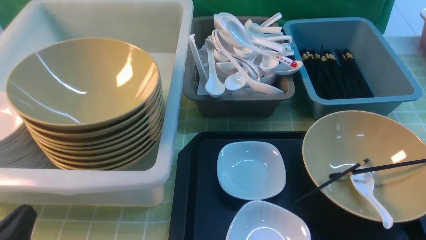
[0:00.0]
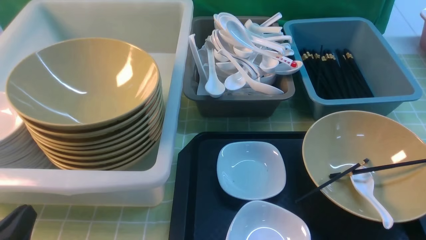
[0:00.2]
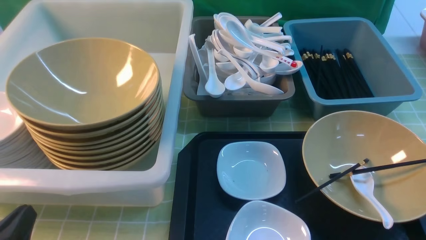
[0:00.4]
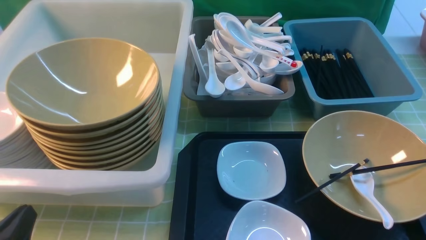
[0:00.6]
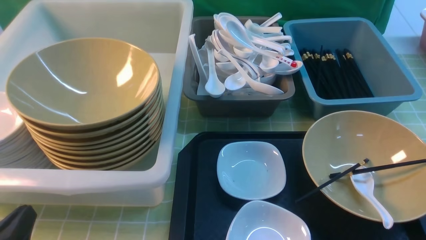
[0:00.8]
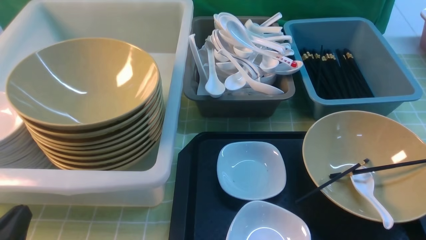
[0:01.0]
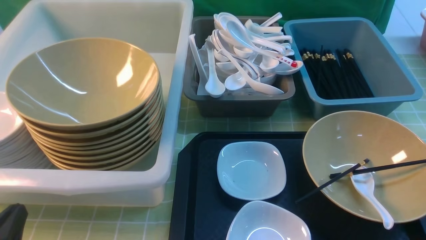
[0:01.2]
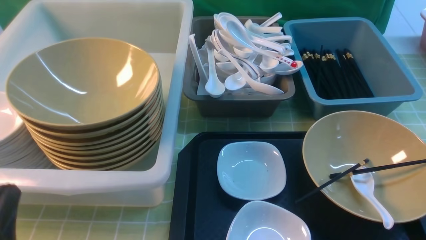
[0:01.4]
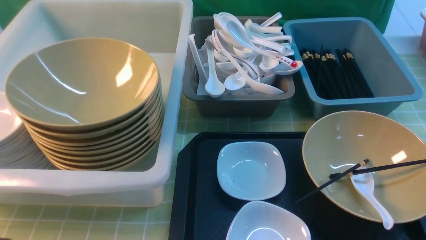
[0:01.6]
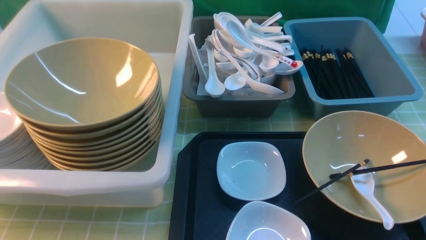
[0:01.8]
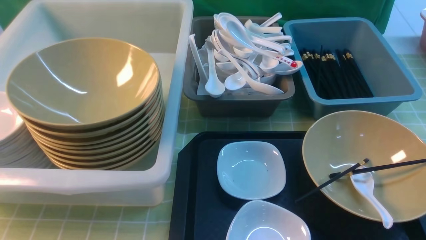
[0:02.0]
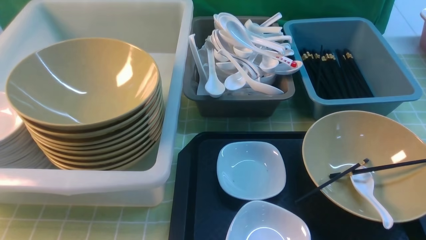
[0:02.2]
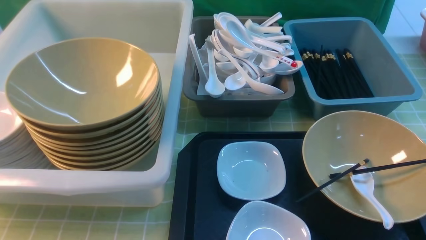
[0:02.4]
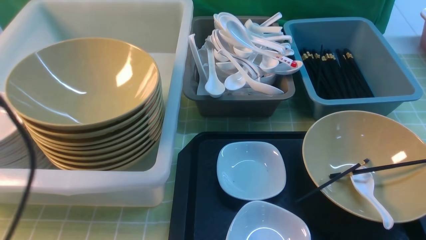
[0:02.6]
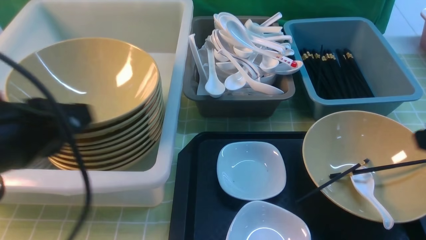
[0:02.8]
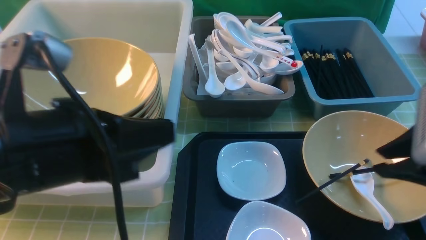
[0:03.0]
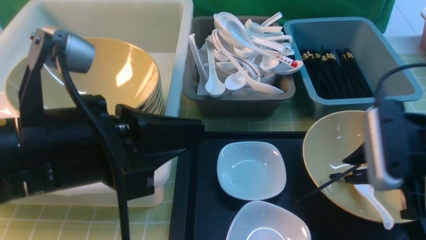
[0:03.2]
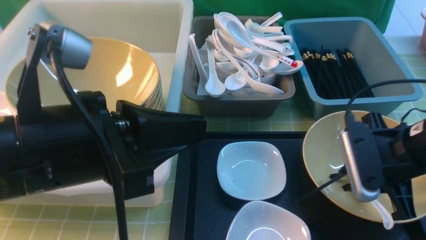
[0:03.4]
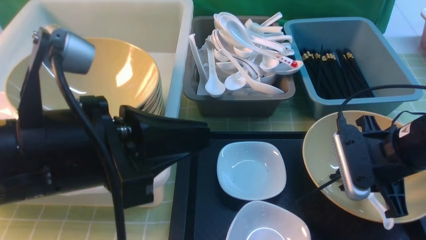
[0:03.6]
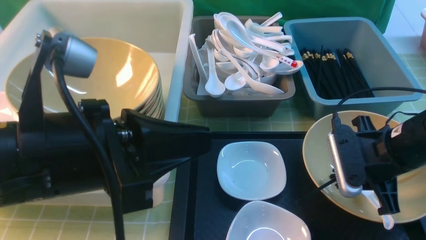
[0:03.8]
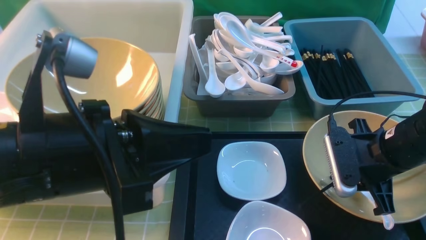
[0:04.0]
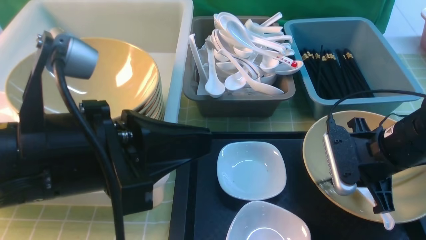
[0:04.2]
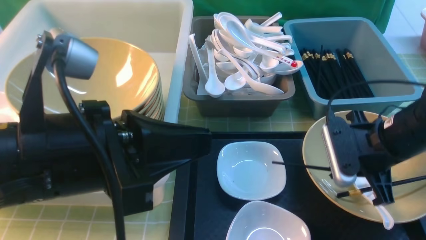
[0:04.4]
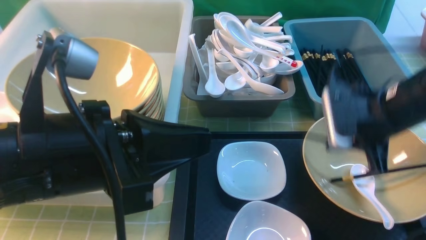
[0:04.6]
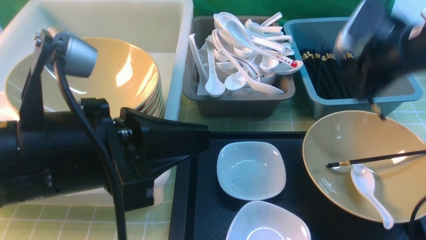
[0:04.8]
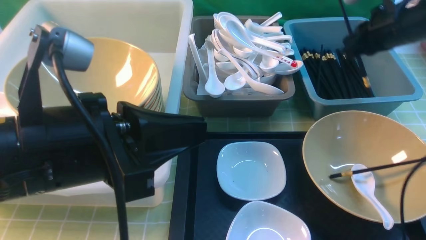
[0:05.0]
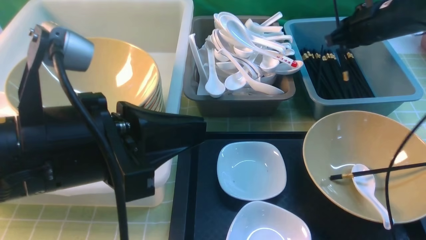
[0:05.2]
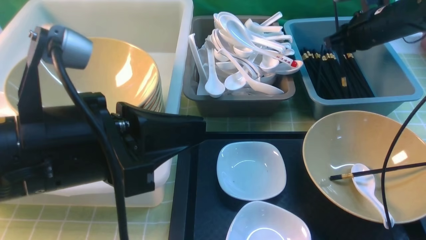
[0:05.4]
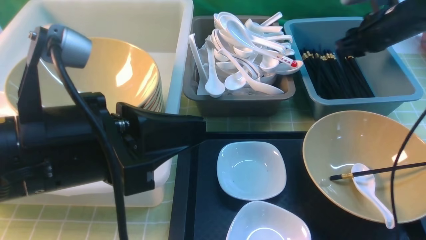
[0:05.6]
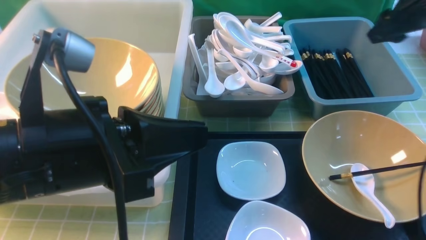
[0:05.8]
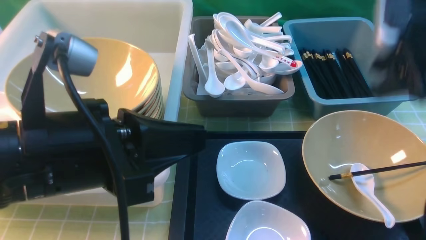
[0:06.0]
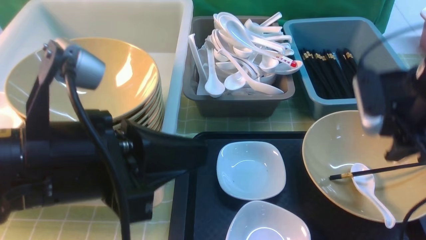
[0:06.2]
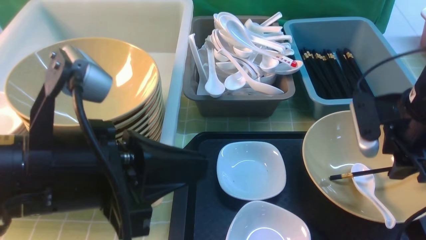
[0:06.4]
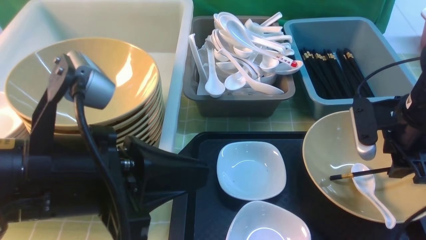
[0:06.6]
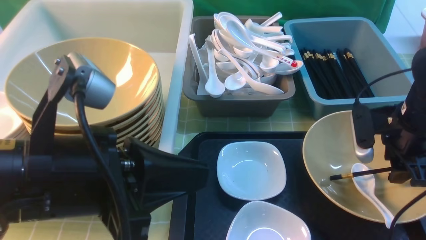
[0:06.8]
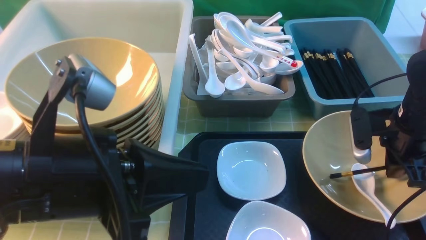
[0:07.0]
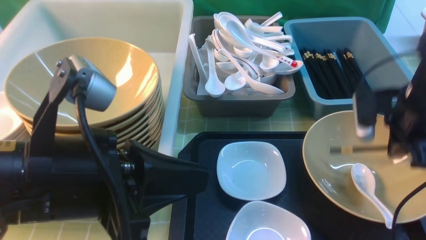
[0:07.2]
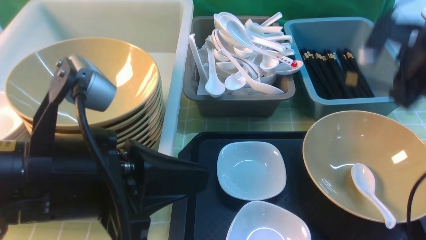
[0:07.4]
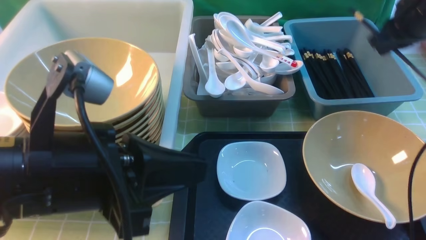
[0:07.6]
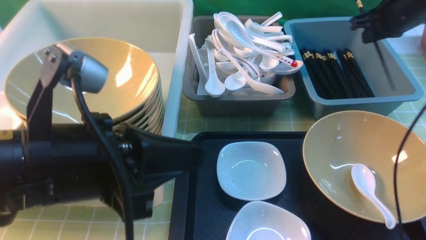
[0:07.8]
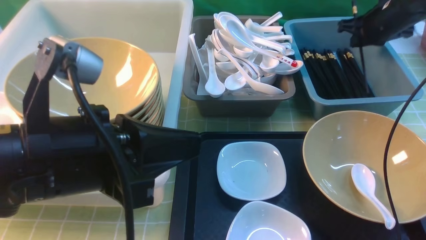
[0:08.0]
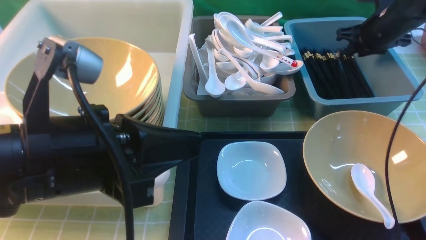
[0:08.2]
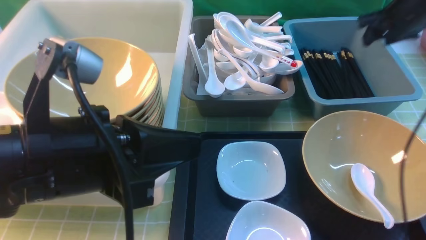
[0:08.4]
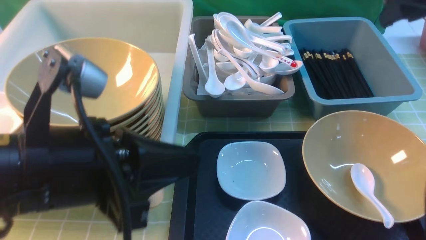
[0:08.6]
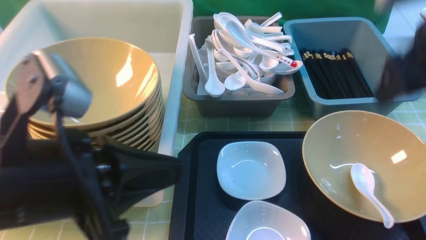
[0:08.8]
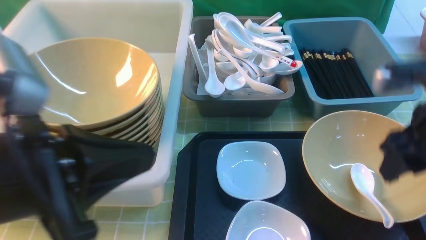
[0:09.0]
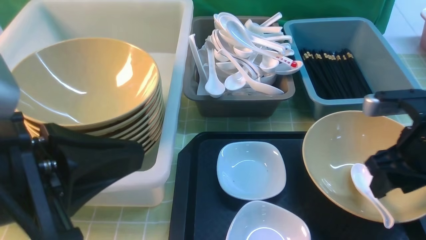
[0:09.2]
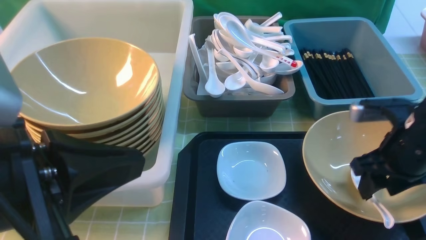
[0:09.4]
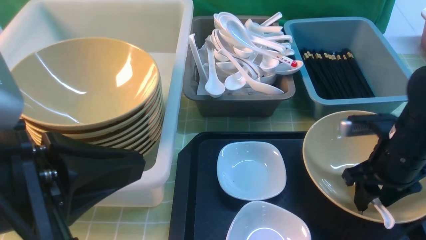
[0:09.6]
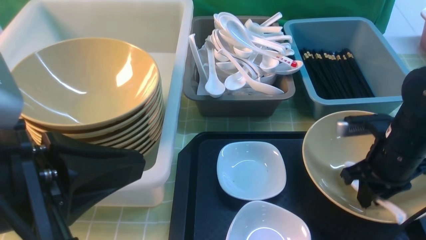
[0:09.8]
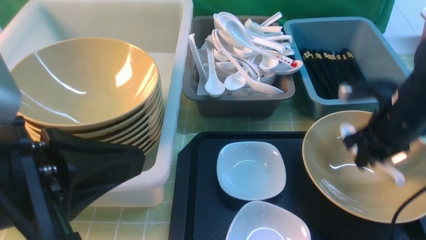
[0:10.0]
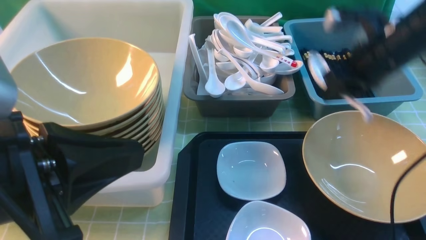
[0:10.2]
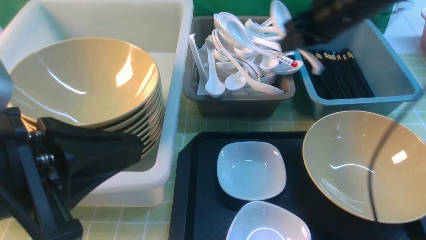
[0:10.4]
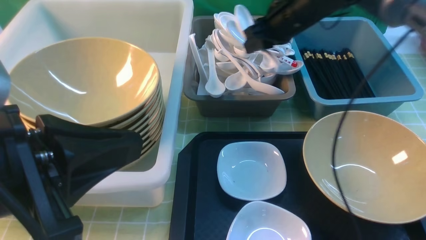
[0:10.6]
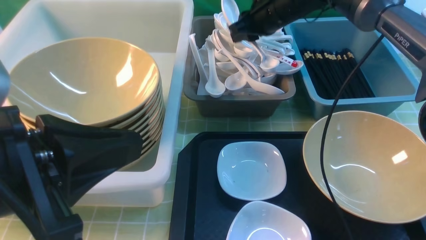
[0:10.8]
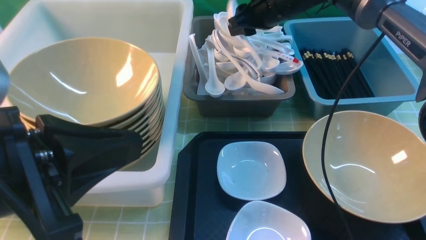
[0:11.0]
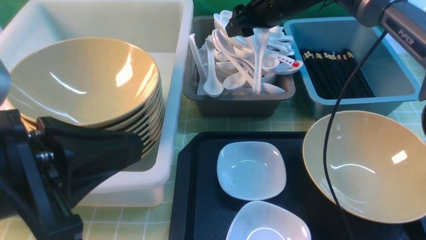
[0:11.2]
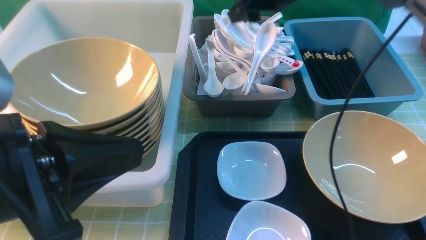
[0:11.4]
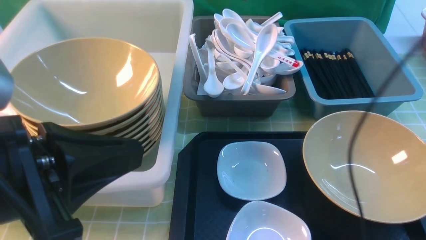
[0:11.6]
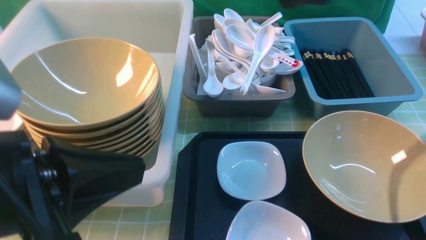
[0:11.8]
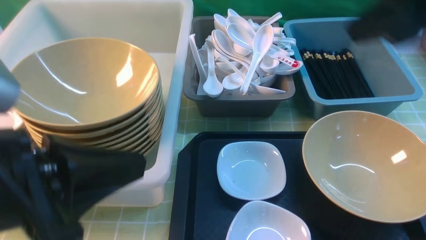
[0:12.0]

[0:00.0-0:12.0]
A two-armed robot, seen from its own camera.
Task of the whole recording: on green table put chopsticks spoon bowls plates into blue grey white boxes.
Step, 0.0 to 4.6 s: use the right arm to grab a chopstick.
Step, 4.8 to 5.8 s: use the right arm to put a chopstick into the small storage box on the right.
Step, 6.0 to 7.2 s: use the right arm to grab a chopstick.
Step, 7.4 to 8.0 s: use the right arm to put a chopstick into the small storage box on the right.
Step, 8.2 to 10.0 s: use the right arm to grab the soup spoon in the middle.
Step, 10.2 to 11.4 s: use the right arm to put the soup spoon into the small storage box in the middle.
0.0 to 1.6 s: The left gripper moves upward, roughly 5 cm.
1.6 to 3.0 s: The right gripper goes roughly 15 cm forward, and moves roughly 20 cm upward and comes back, while the left gripper heads upward, to the right and forward, covering about 15 cm.
3.0 to 4.4 s: The right gripper shifts some 10 cm forward and downward.
4.4 to 6.0 s: The right gripper is displaced upward and to the right by roughly 10 cm, reaches approximately 20 cm forward, then returns, and opens its fingers.
6.0 to 7.6 s: The right gripper is displaced forward by approximately 10 cm, and closes.
7.6 to 9.0 s: The right gripper is displaced backward by approximately 15 cm, and opens up.
9.0 to 10.4 s: The right gripper goes roughly 20 cm forward and to the left, and closes up.
10.4 to 12.0 s: The right gripper shifts roughly 25 cm backward and upward, and opens, then closes once more.

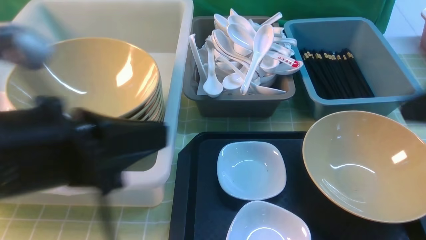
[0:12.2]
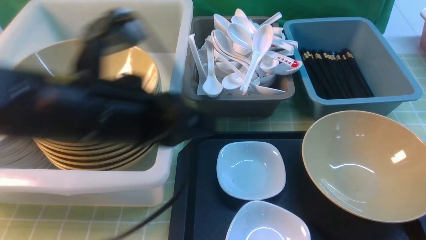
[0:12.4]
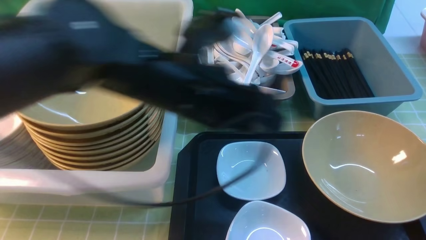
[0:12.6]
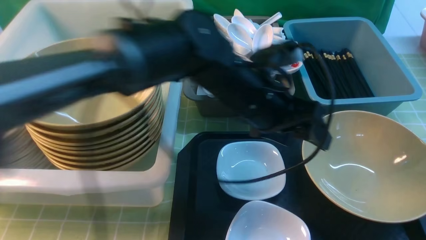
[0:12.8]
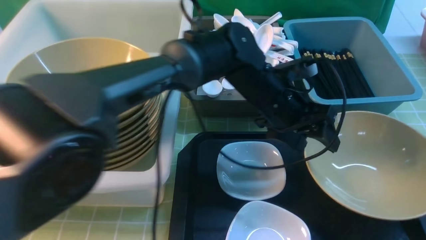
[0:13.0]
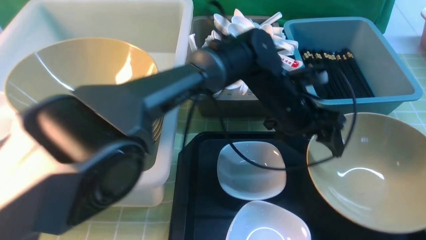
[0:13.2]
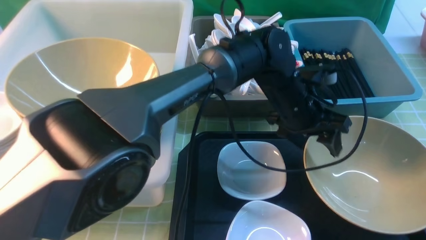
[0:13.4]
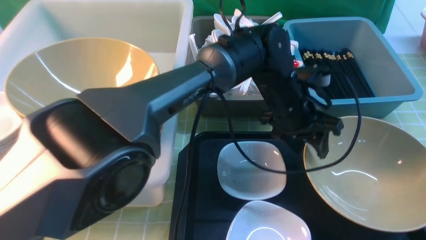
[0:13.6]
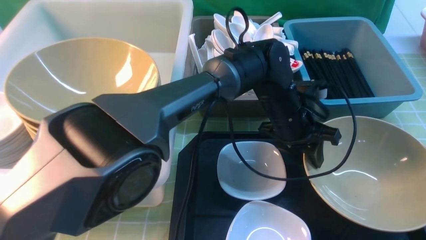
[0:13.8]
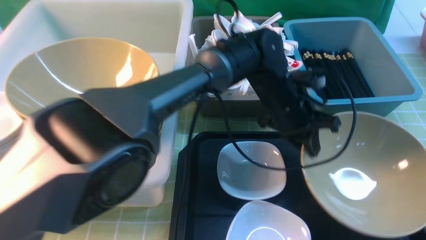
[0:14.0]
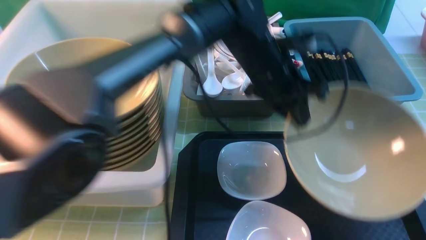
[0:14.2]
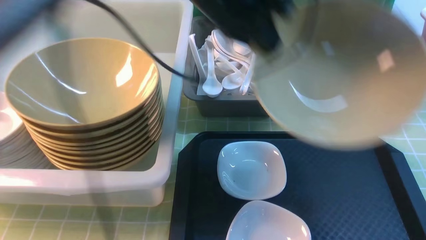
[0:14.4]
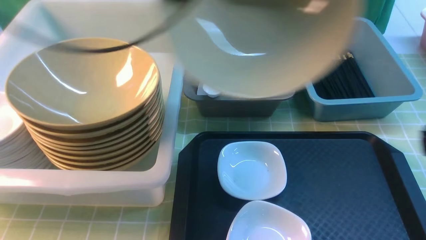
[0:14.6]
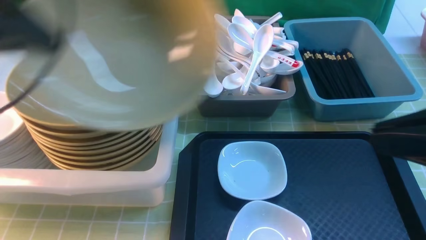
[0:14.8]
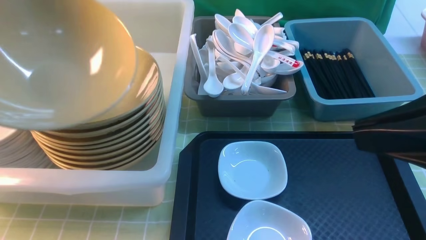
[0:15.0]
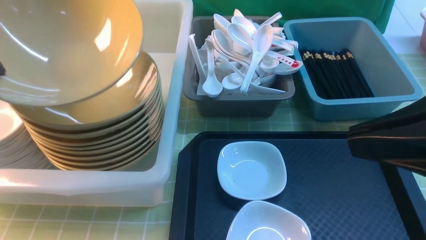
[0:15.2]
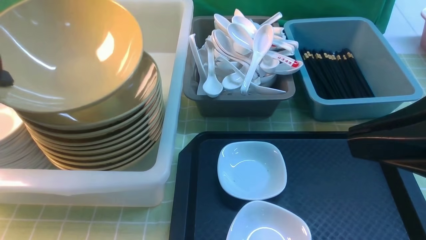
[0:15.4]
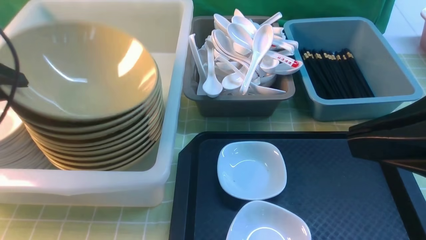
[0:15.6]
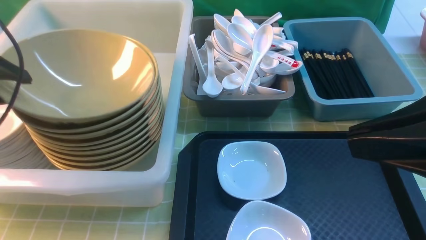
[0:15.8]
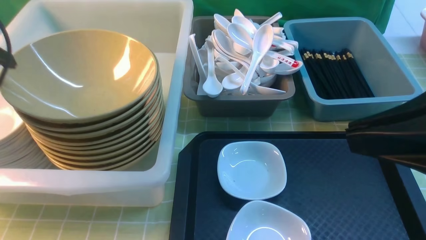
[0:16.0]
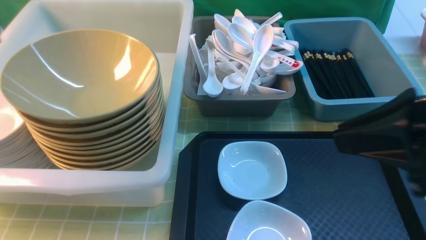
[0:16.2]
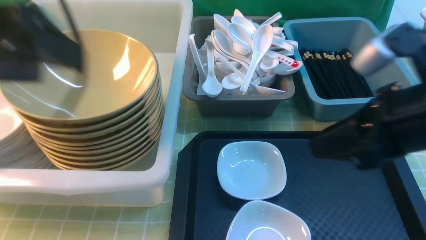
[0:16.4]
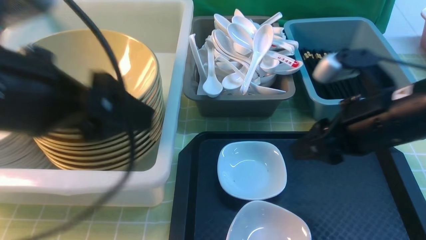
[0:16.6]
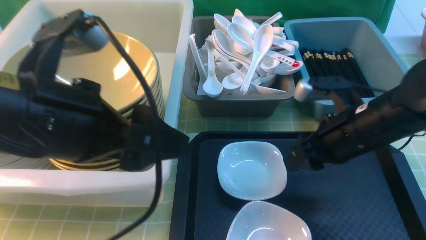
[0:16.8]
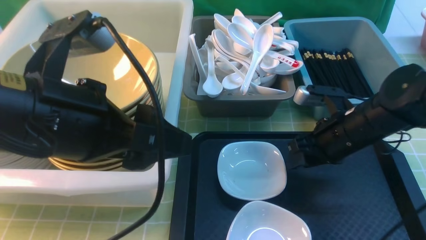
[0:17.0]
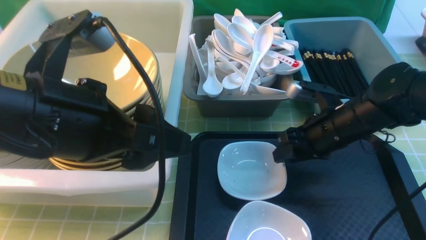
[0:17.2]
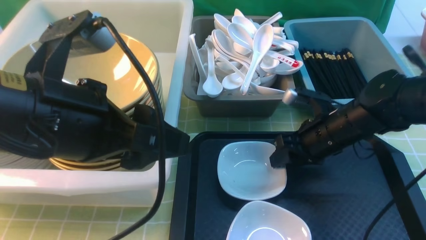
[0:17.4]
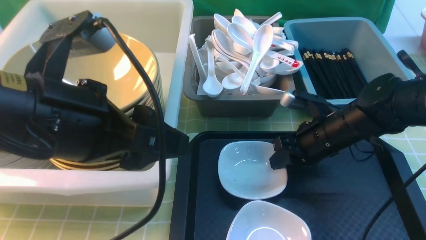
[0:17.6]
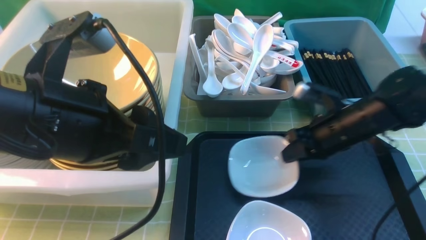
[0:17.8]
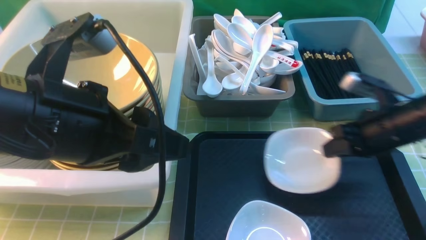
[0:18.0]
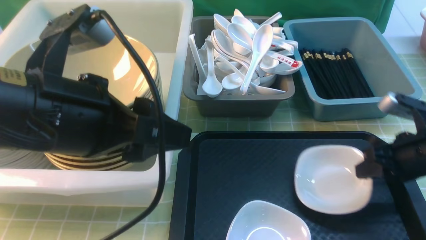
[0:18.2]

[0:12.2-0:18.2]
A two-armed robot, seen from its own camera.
Task of the whole recording: on green table put chopsticks spoon bowls plates into blue grey white boxes.
Step, 12.2 to 14.2 s: use the left arm to grab the yellow noodle bowl on the left.
Step, 14.4 to 16.0 s: use the left arm to put the noodle bowl into the large storage box on the left.
Step, 16.2 to 17.8 s: use the right arm to grab the plate.
12.2 to 13.8 s: The right gripper shifts approximately 5 cm backward, while the left gripper moves to the right, forward and downward, roughly 35 cm, and opens and closes again.
13.8 to 15.2 s: The right gripper goes about 10 cm forward and to the left, while the left gripper is displaced to the left by approximately 40 cm.
15.2 to 16.6 s: The right gripper travels forward and downward by approximately 15 cm, and opens. Meanwhile the left gripper is displaced to the right by about 15 cm, and opens.
16.6 to 18.2 s: The right gripper moves to the right and downward, about 15 cm, and closes.
